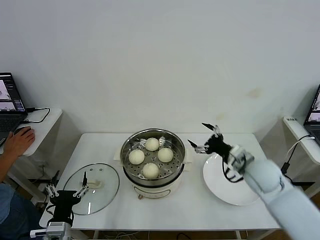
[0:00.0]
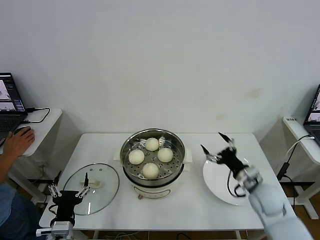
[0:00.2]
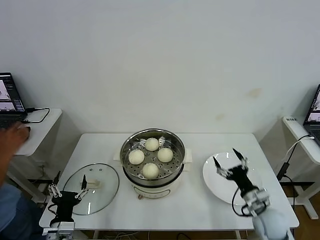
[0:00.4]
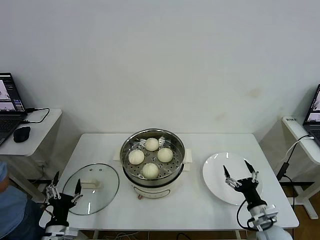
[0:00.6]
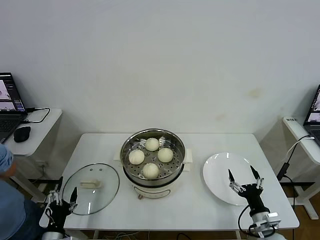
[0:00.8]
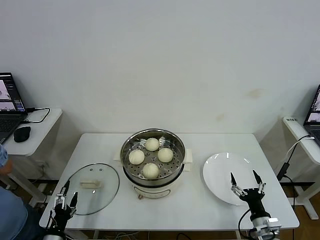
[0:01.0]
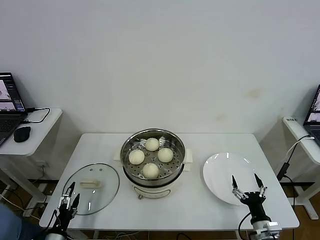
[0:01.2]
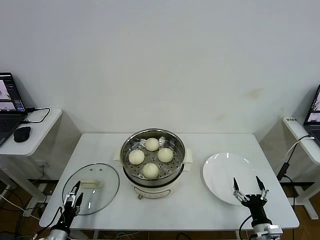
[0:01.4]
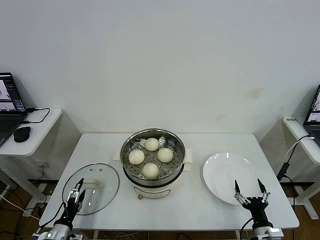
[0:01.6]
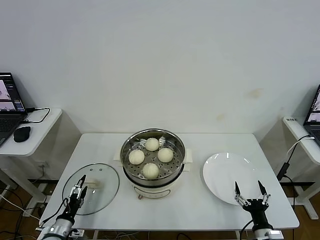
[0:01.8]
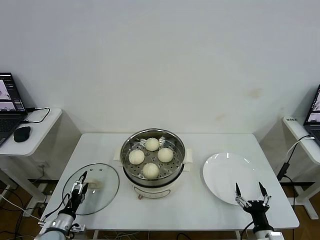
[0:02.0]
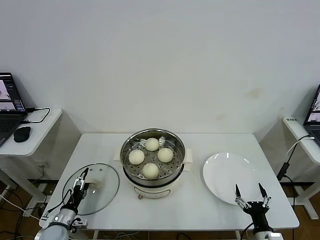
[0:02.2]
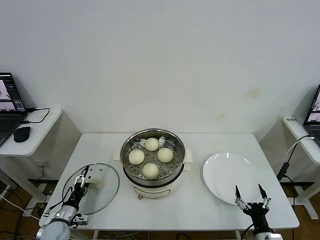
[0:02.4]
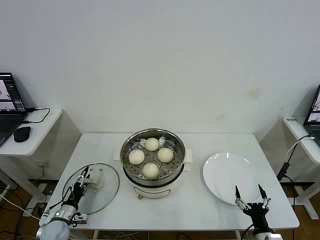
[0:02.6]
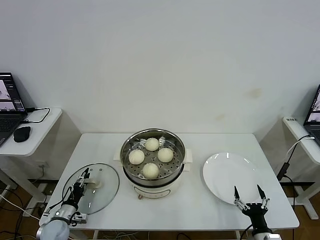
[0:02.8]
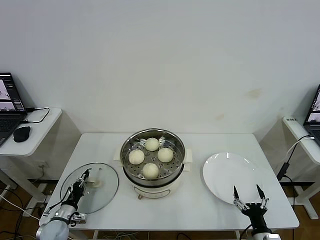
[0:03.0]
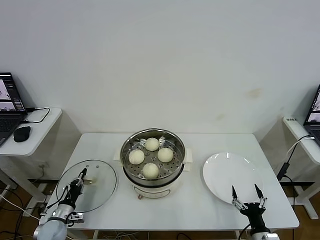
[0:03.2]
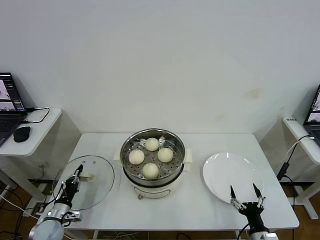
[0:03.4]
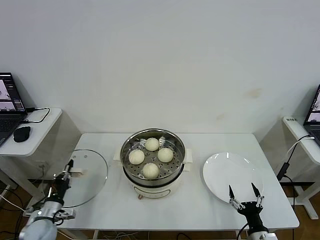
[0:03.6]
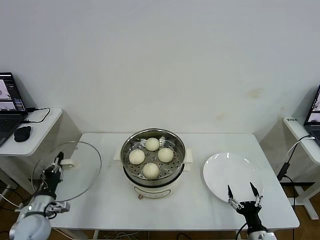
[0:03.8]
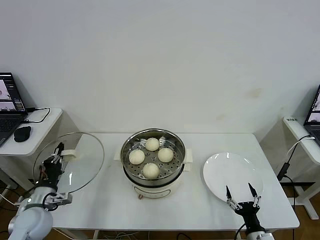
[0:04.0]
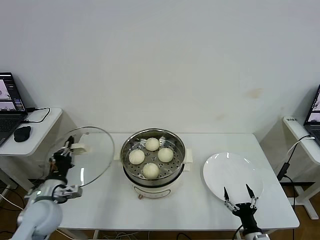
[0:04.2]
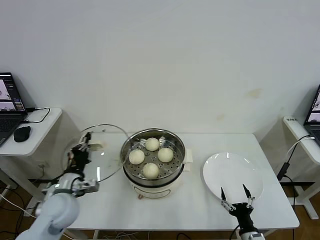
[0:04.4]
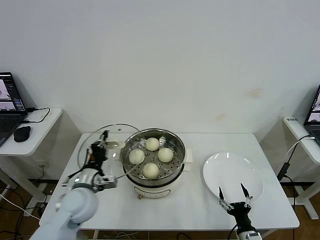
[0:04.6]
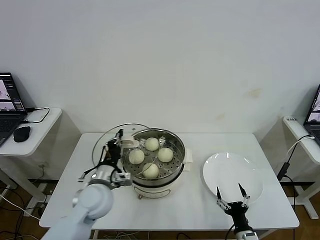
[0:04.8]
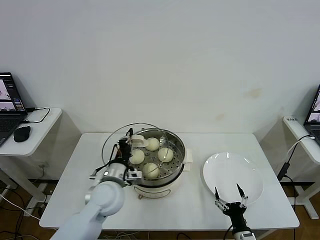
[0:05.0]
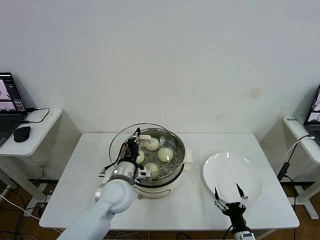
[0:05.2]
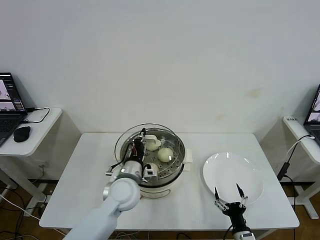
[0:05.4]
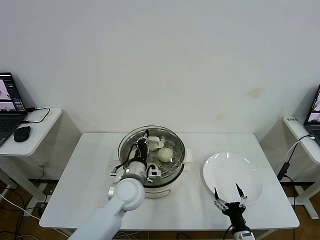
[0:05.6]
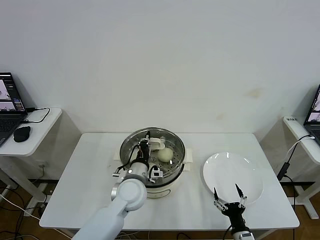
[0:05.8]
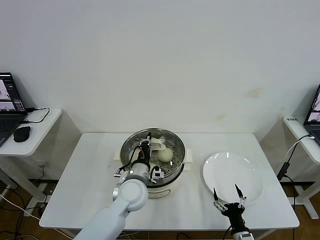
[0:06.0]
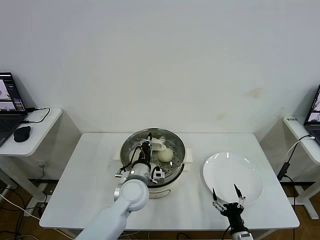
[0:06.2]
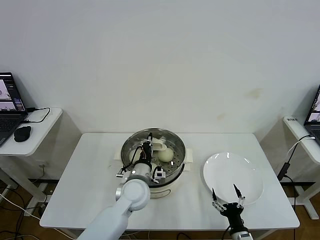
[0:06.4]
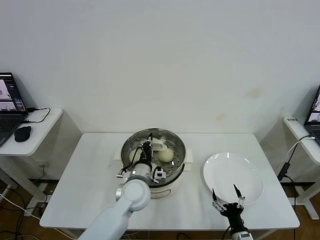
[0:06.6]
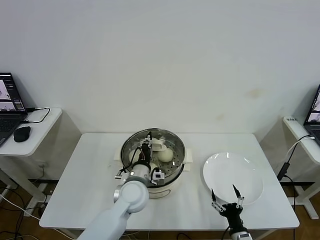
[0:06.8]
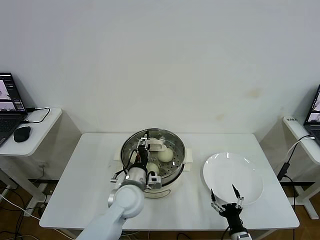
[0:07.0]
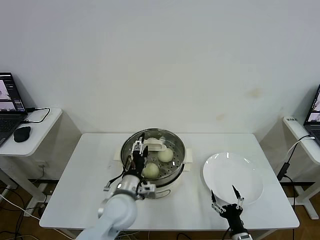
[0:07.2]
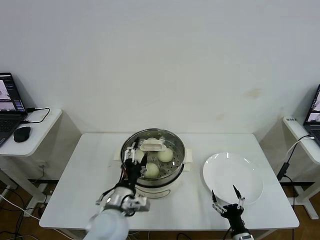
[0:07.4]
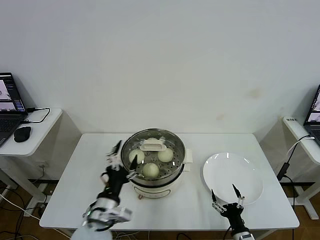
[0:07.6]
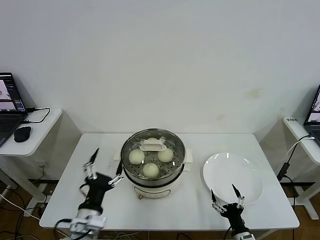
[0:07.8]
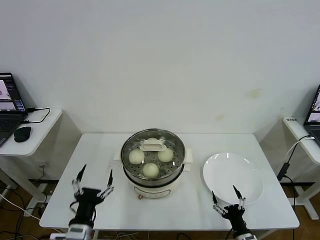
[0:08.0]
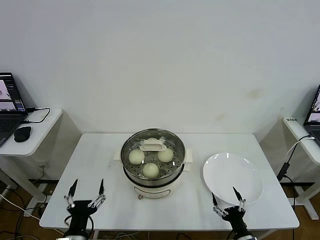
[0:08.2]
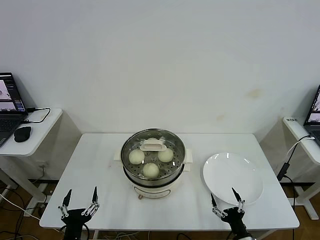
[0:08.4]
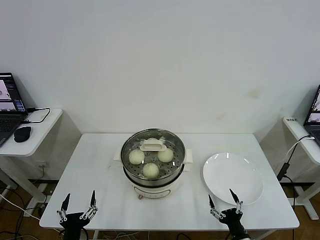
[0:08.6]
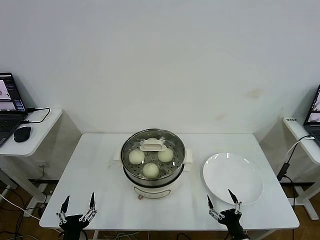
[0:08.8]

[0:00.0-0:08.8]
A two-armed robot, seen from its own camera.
Step, 0:00.0 to 0:03.2: Grasp the pot lid with left gripper.
Step, 0:03.4 to 0:07.2: Place the pot lid on the steamer with left gripper.
0:00.0 to 0:01.4: The right gripper moves downward and backward, some 25 cm, while the left gripper heads downward and to the left, covering roughly 15 cm.
0:01.4 to 0:03.0: The left gripper travels forward by about 10 cm, and closes up.
0:03.0 to 0:04.4: The left gripper moves upward and to the right, about 25 cm.
0:04.4 to 0:05.8: The left gripper heads to the right, covering some 20 cm.
0:05.8 to 0:07.4: The left gripper travels backward by about 10 cm, and opens up.
0:07.4 to 0:08.8: The left gripper moves backward, to the left and downward, some 25 cm.
